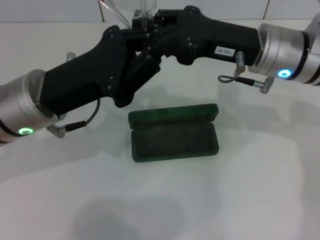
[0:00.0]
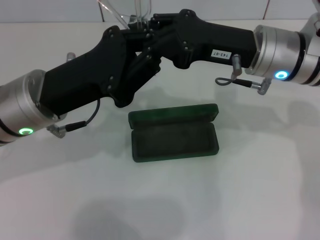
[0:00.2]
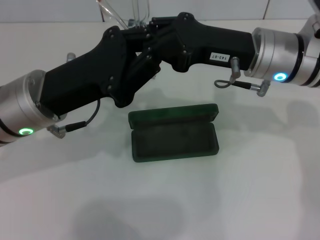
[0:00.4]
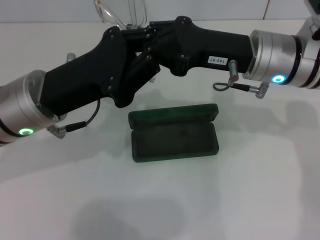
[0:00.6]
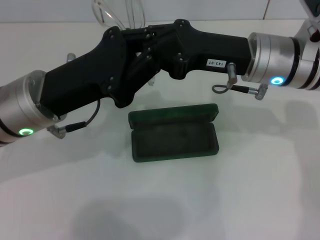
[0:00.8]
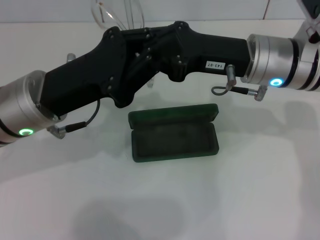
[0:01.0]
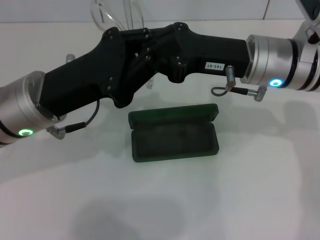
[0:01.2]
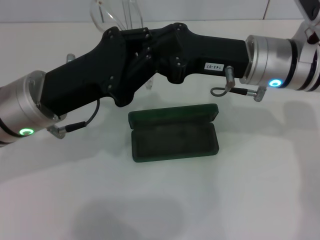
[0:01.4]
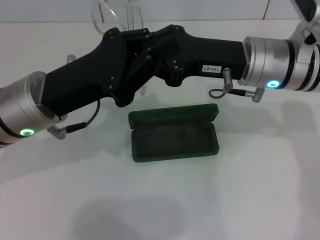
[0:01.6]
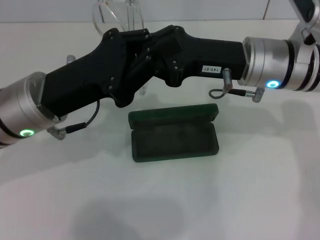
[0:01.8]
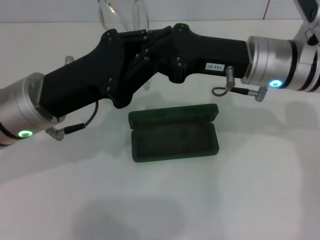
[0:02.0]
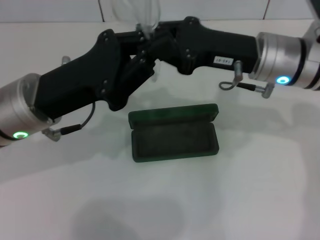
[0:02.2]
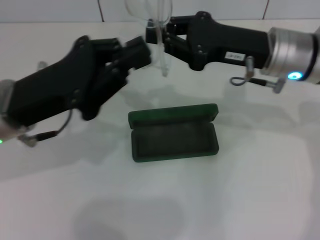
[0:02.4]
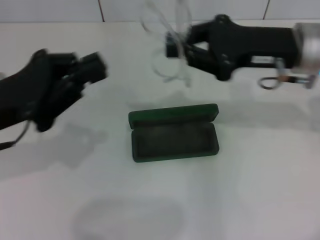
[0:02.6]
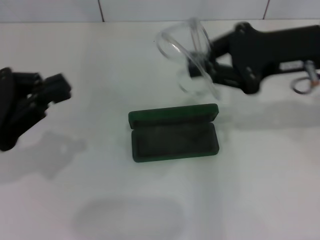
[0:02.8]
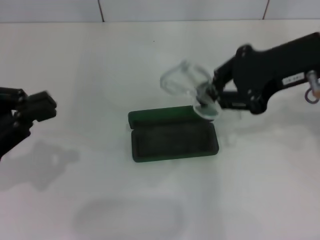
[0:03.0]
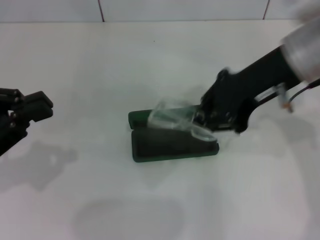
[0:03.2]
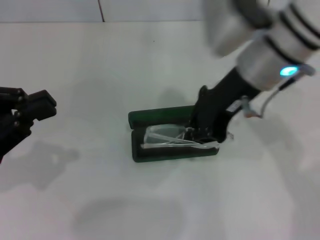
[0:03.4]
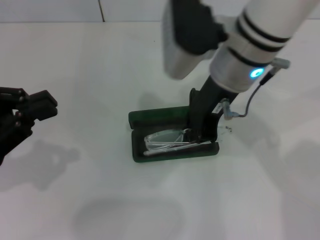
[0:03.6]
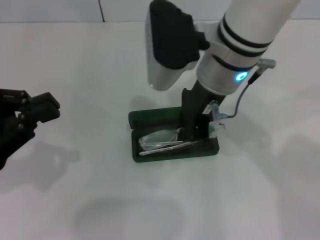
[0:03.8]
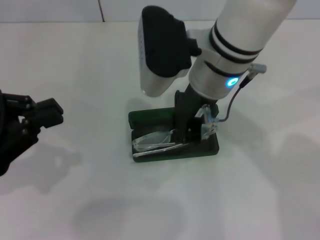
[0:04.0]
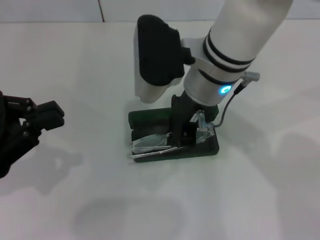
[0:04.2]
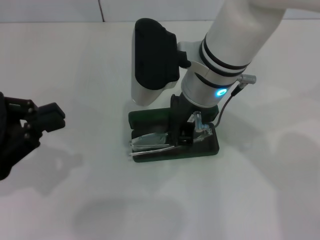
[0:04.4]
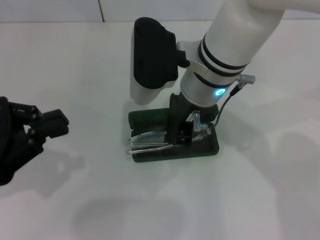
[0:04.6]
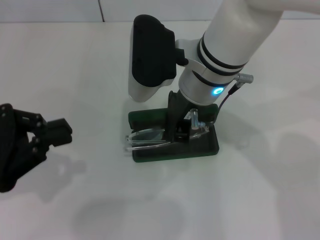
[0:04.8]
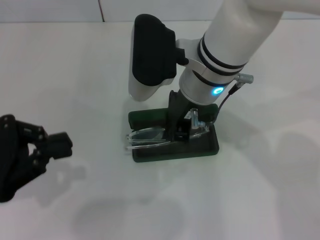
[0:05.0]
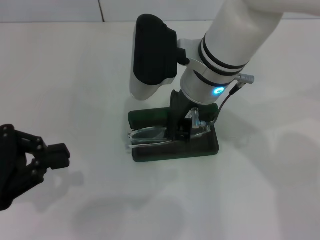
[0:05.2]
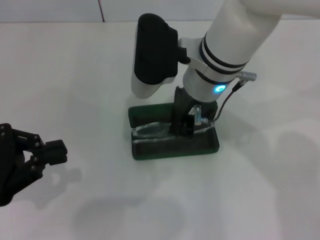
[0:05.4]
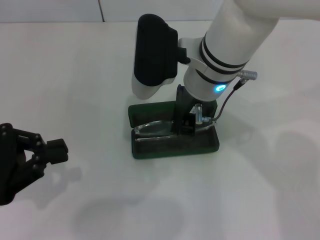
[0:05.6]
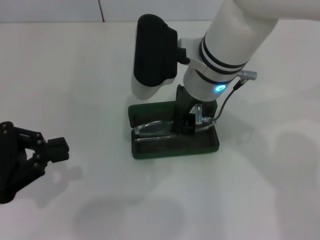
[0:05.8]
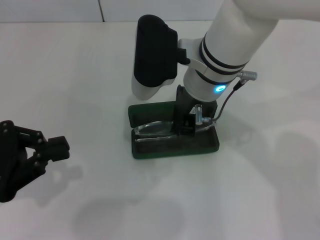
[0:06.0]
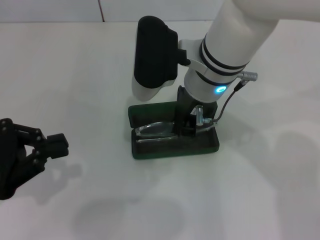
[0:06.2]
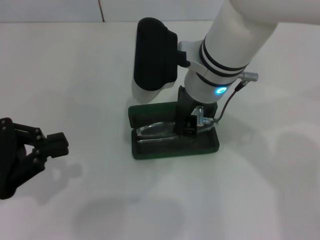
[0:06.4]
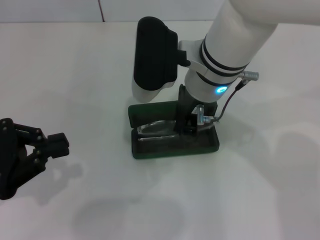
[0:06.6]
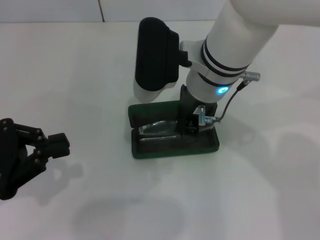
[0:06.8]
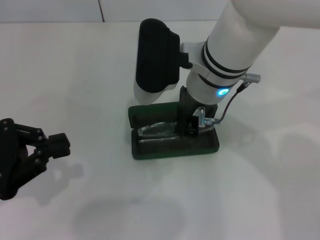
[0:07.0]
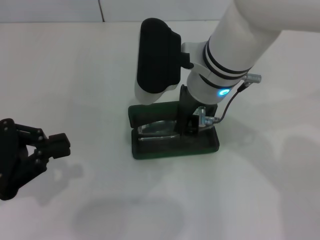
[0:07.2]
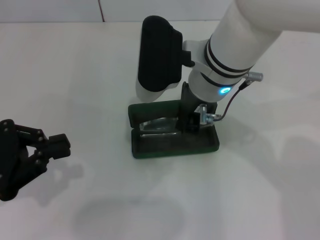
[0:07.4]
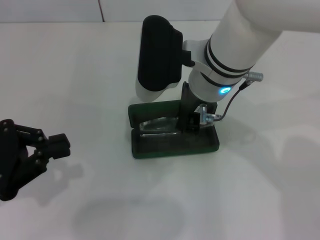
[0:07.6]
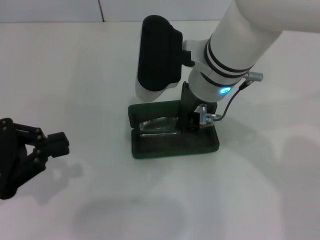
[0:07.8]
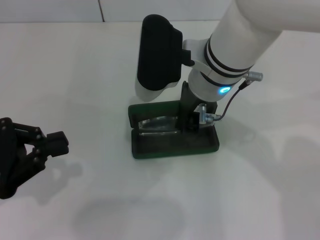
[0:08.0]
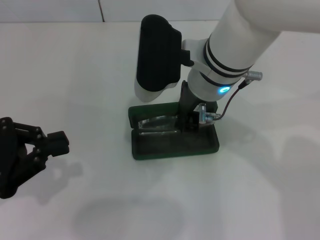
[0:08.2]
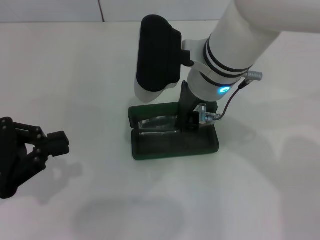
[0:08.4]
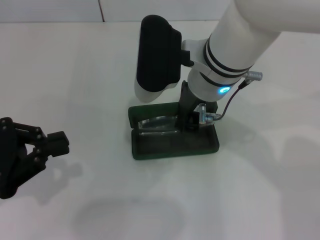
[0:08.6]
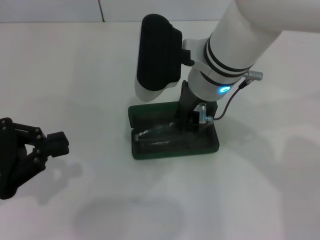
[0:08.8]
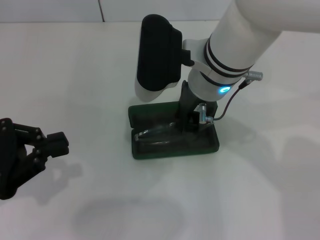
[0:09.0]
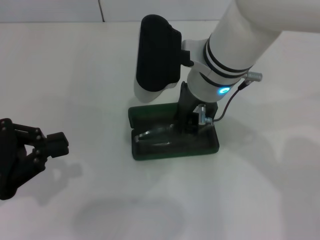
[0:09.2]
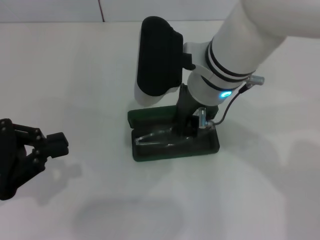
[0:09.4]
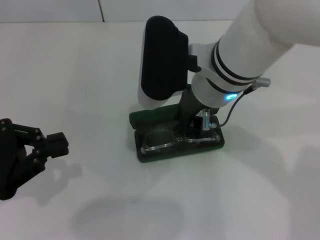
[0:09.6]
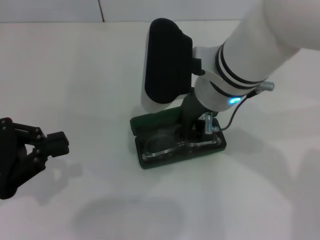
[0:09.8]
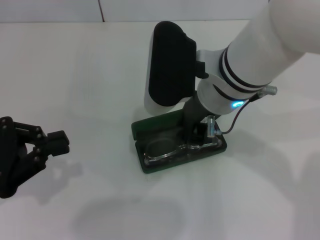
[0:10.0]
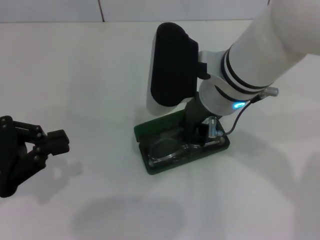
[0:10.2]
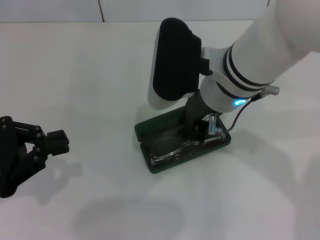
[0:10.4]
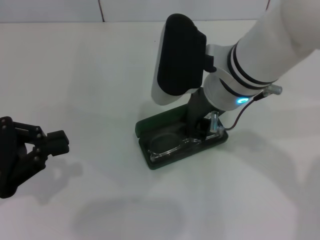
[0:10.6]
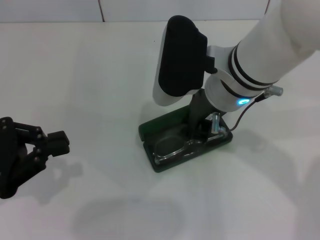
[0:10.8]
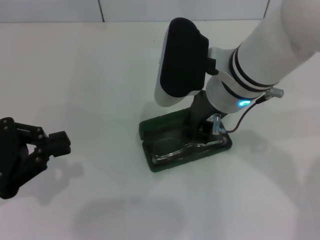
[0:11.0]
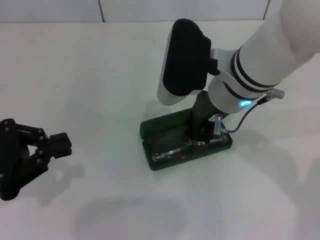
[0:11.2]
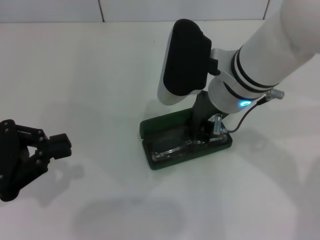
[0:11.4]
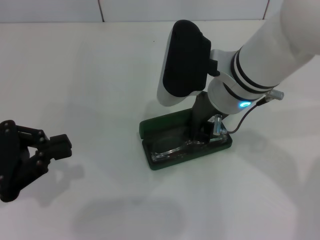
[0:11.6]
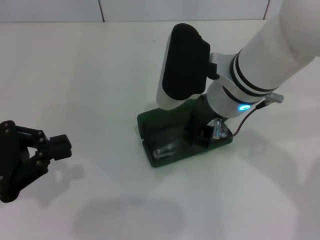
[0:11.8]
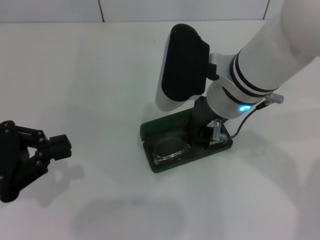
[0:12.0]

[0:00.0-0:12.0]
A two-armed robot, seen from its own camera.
Step, 2.0 to 9.6 s: Put the glasses into the case with your right hand.
0.0 to 1.6 s: The grippers make only small movements.
1.6 to 3.0 s: The right gripper heads upward and to the right, covering about 10 cm, while the left gripper is displaced to the left and backward by roughly 15 cm.
3.0 to 4.4 s: The right gripper shifts approximately 15 cm to the left.
4.4 to 6.0 s: There are only small adjustments of the grippers.
6.0 to 9.0 s: Both grippers stay about where they are.
9.0 to 12.0 s: There are only small adjustments of the grippers.

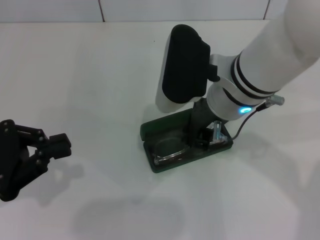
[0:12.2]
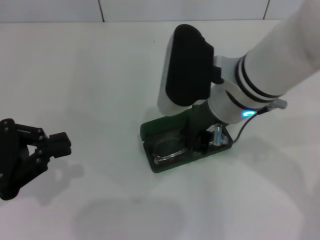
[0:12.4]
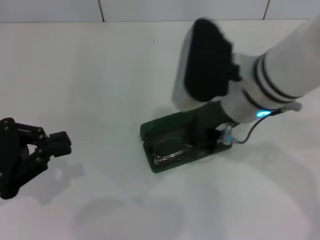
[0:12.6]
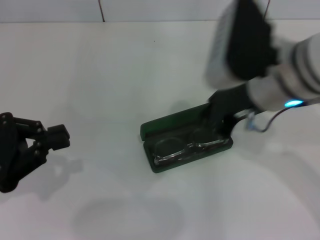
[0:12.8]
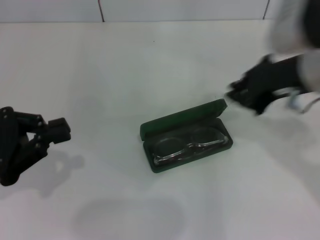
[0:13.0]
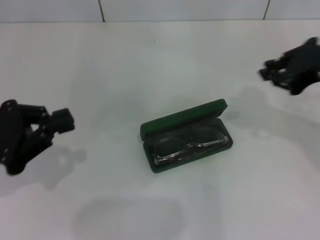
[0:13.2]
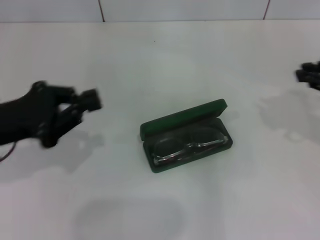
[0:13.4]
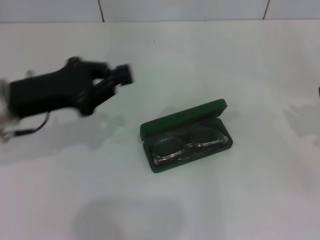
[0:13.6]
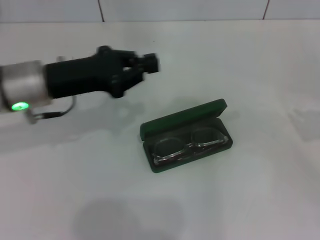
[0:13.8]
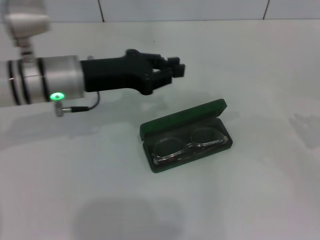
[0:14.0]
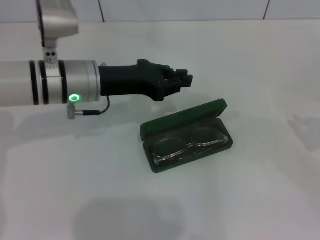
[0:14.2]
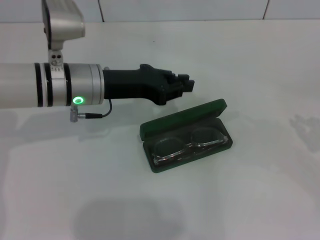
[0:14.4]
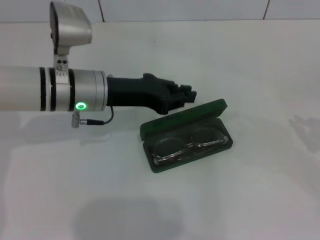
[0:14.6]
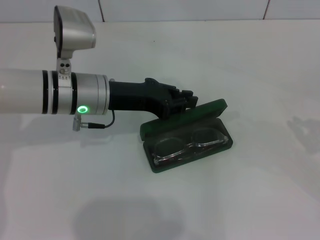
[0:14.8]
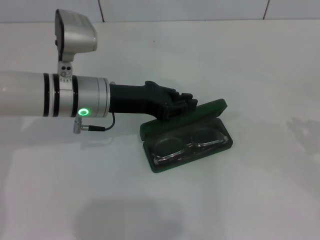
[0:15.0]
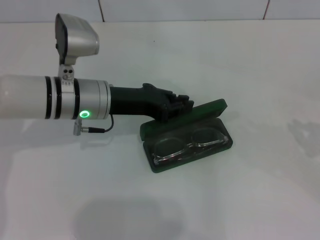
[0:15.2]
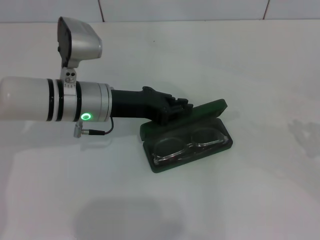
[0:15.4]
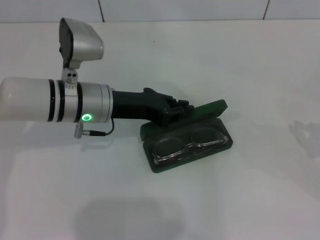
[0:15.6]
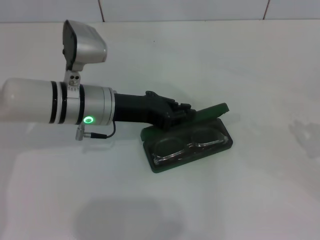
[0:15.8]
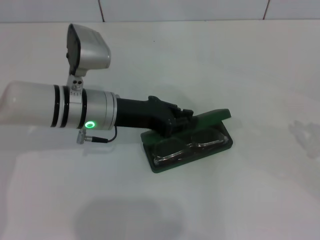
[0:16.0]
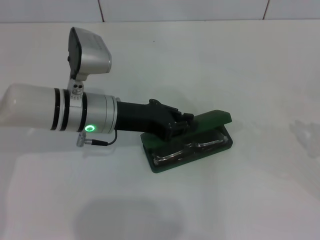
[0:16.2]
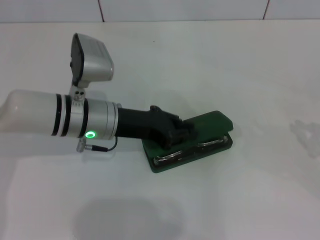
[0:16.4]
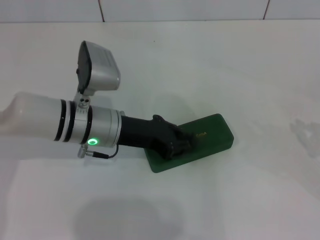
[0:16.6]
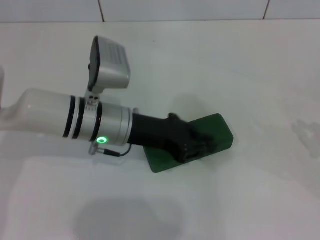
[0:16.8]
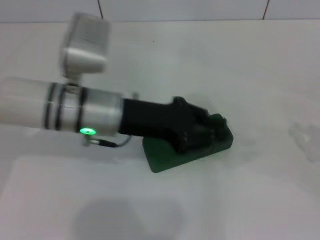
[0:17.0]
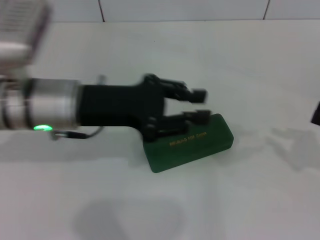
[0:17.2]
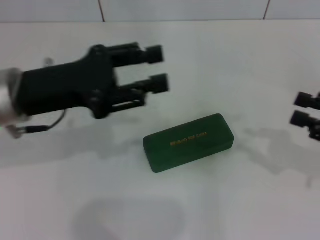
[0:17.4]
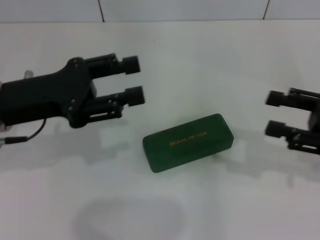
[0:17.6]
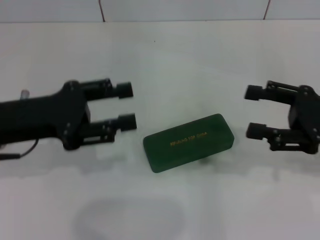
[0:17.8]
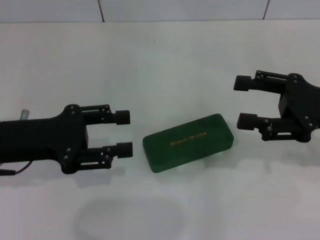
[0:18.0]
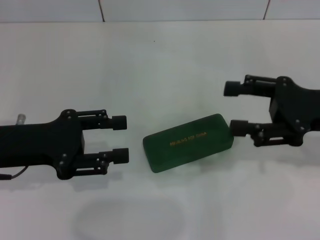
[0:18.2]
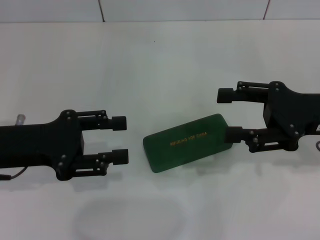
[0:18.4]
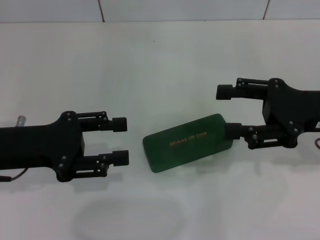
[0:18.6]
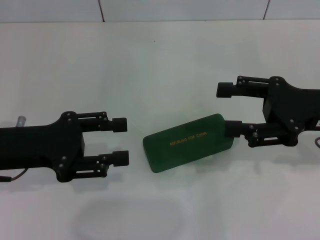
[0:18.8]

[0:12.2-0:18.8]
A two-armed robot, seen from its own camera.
Step, 12.2 to 16.4 s: Close the glasses case with your left hand.
12.2 to 13.8 s: The right gripper heads to the right, covering approximately 30 cm, while the left gripper heads forward and to the right, covering approximately 15 cm.
13.8 to 15.4 s: The left gripper moves to the right, about 5 cm. Meanwhile the right gripper ends up some 5 cm from where it was.
15.4 to 17.2 s: The left gripper is displaced upward by roughly 5 cm.
17.2 to 18.8 s: The right gripper heads to the left and forward, covering about 15 cm, and opens, while the left gripper goes roughly 10 cm to the left, and opens.

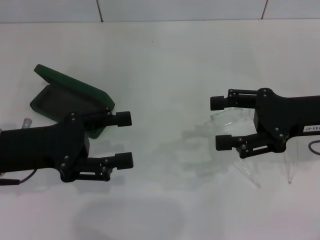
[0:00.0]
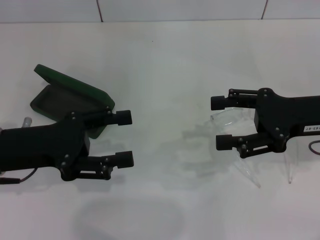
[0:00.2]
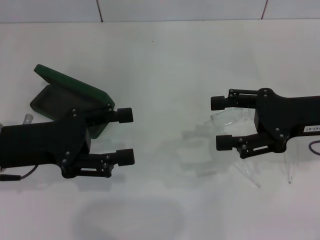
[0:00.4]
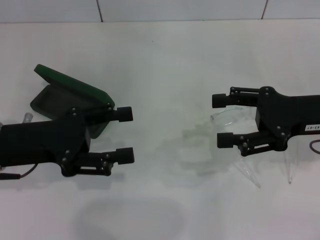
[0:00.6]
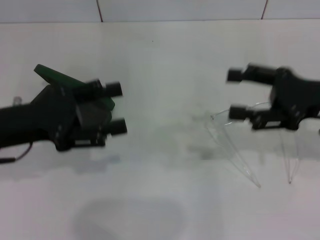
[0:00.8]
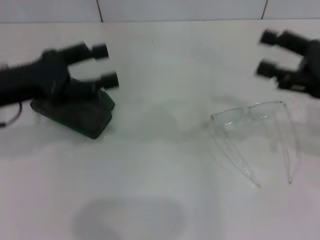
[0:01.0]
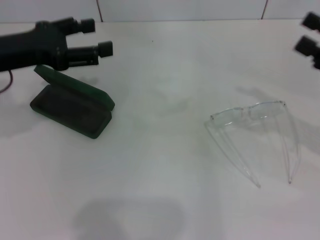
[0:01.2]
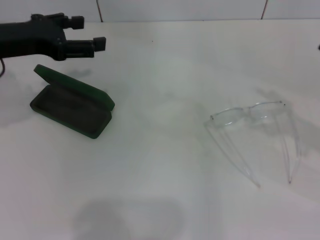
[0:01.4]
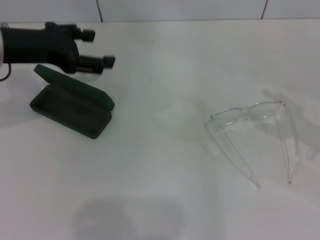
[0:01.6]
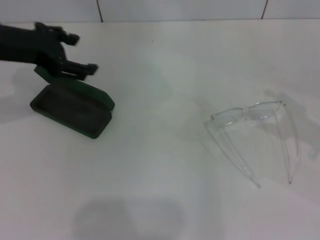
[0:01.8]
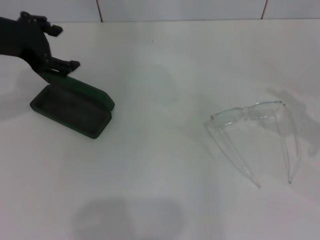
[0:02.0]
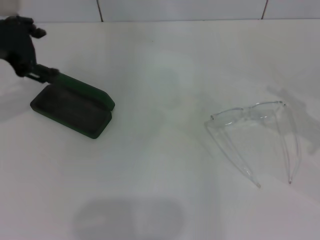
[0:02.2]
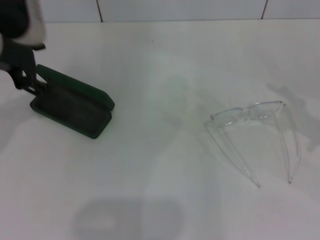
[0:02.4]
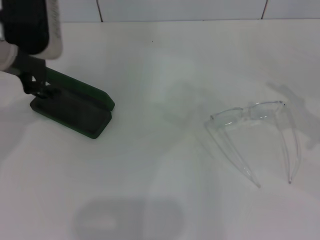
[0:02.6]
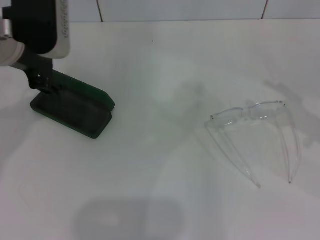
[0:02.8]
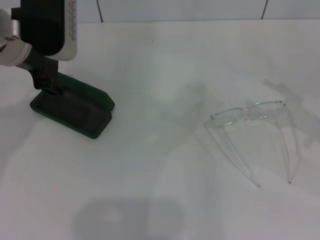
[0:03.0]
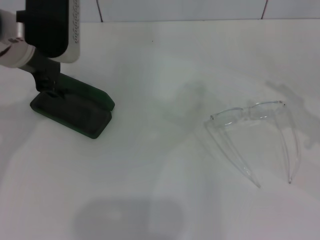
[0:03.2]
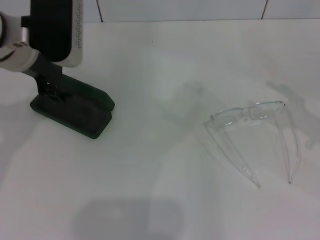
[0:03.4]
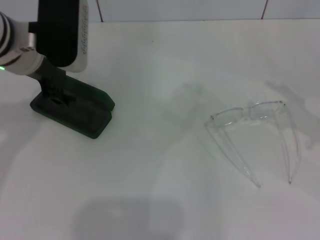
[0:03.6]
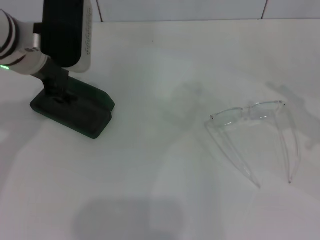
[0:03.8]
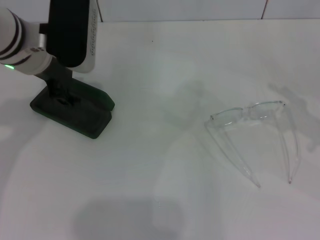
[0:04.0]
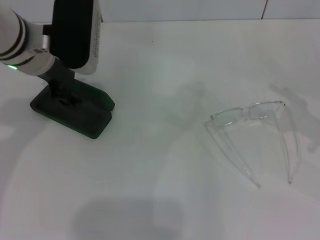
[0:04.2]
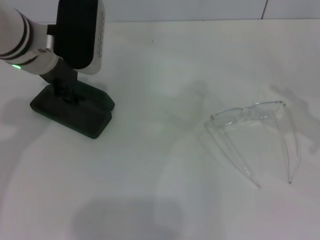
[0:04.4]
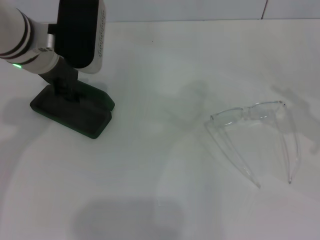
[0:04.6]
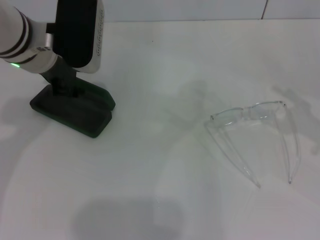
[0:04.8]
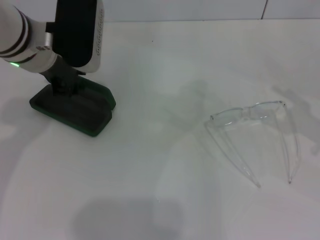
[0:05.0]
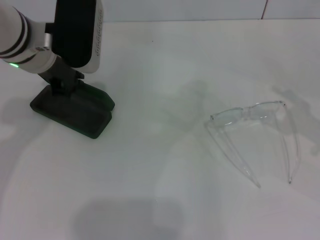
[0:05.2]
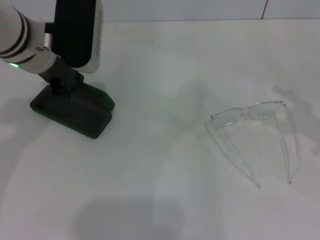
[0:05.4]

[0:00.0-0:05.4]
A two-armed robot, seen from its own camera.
0.0 to 1.4 s: The left gripper shifts some 10 cm forward and upward. Meanwhile the right gripper goes about 10 cm to the right.
1.4 to 2.8 s: The left gripper shifts some 5 cm to the right.
2.8 to 4.0 s: The grippers move only a little.
4.0 to 5.4 s: The left gripper closes up.
